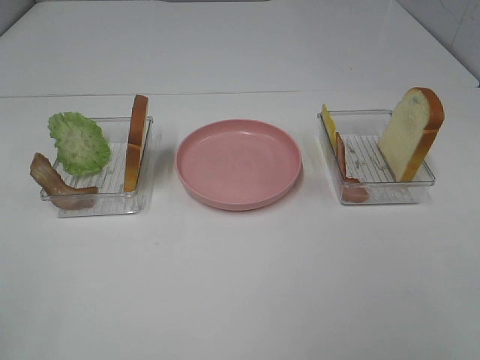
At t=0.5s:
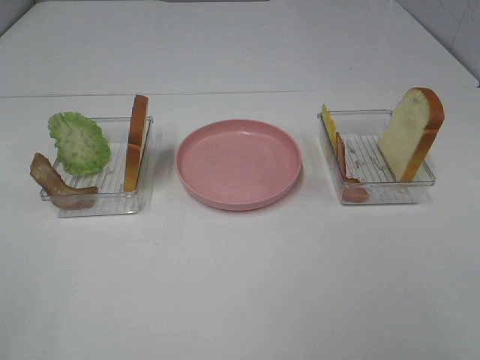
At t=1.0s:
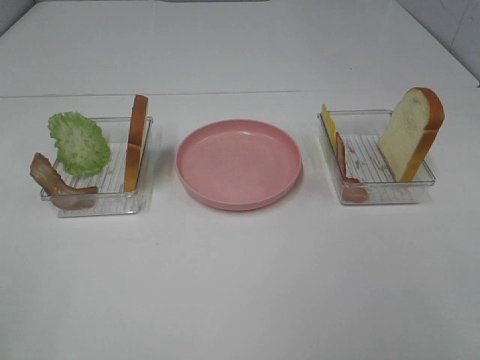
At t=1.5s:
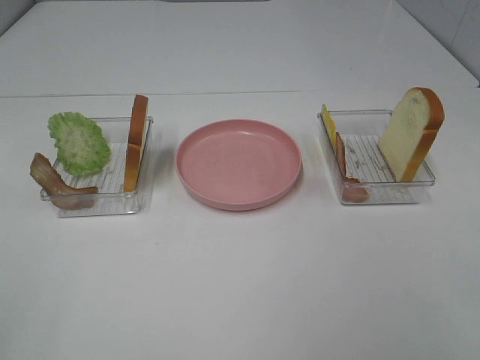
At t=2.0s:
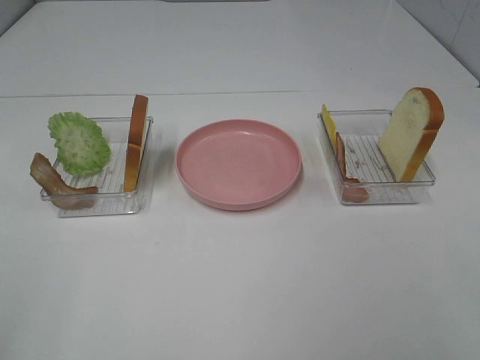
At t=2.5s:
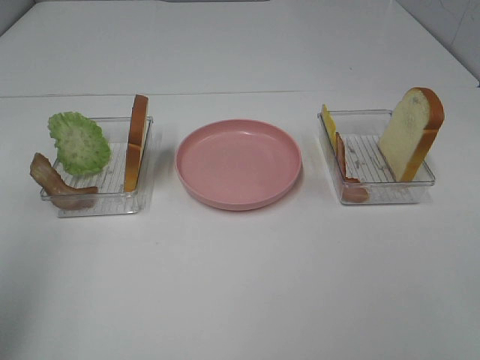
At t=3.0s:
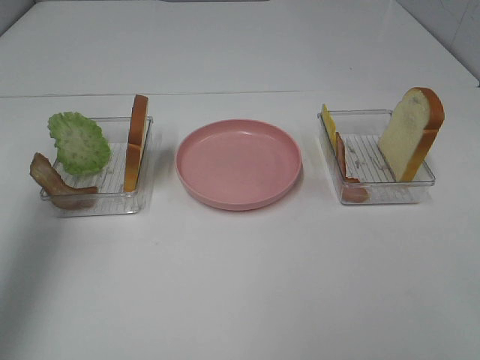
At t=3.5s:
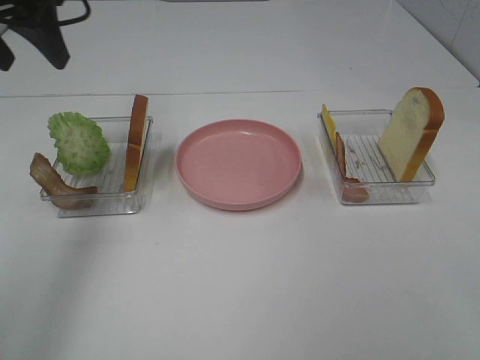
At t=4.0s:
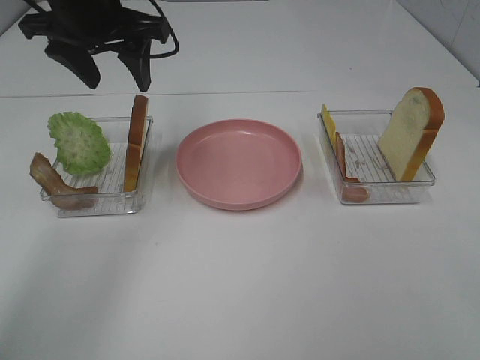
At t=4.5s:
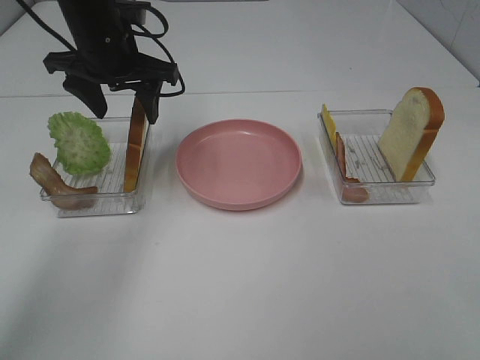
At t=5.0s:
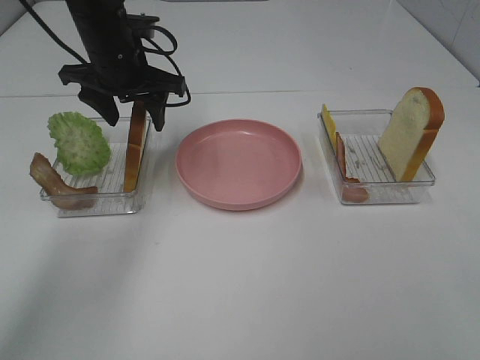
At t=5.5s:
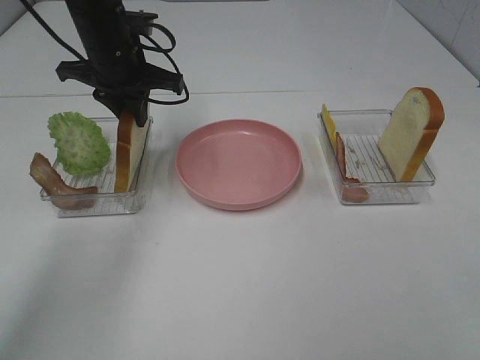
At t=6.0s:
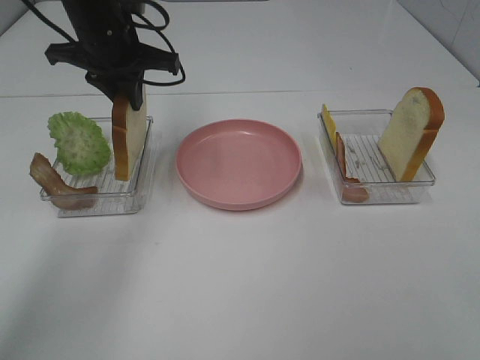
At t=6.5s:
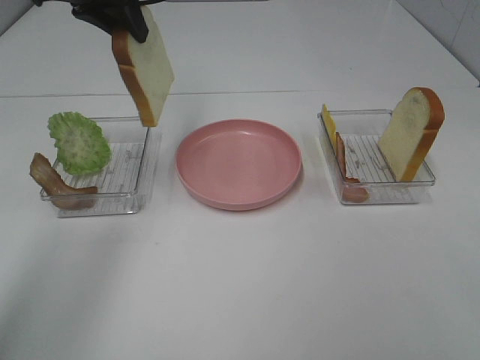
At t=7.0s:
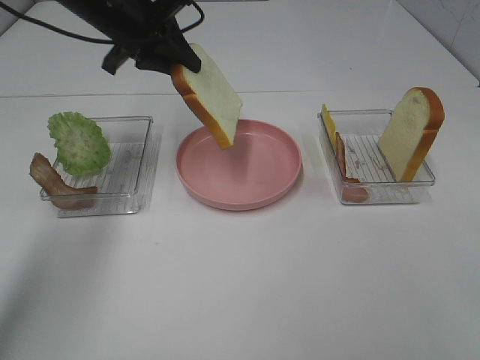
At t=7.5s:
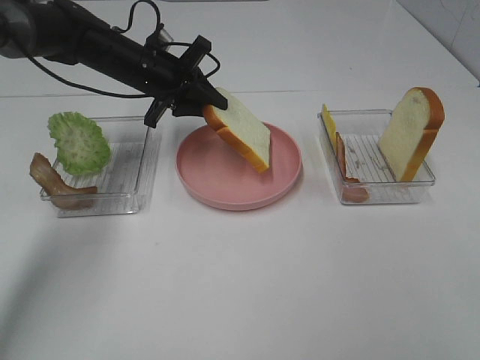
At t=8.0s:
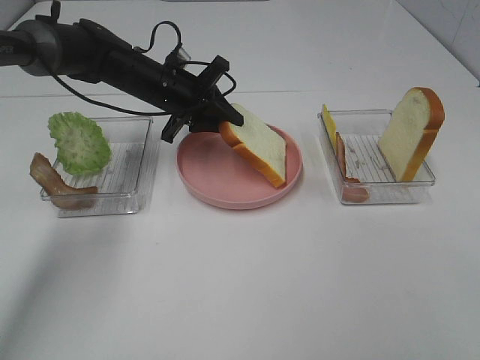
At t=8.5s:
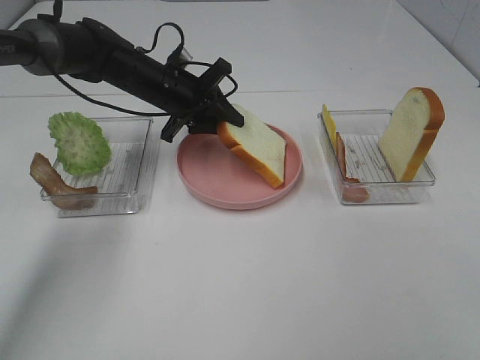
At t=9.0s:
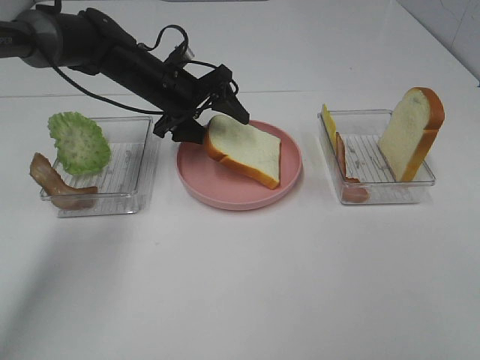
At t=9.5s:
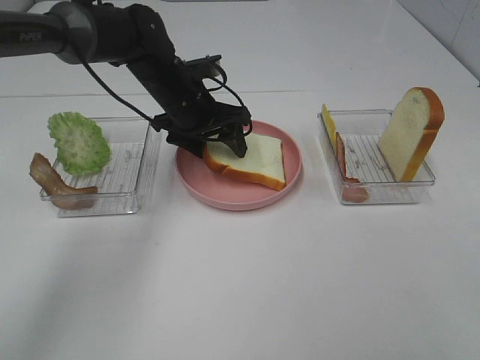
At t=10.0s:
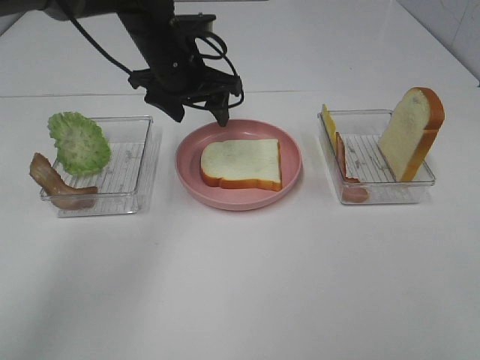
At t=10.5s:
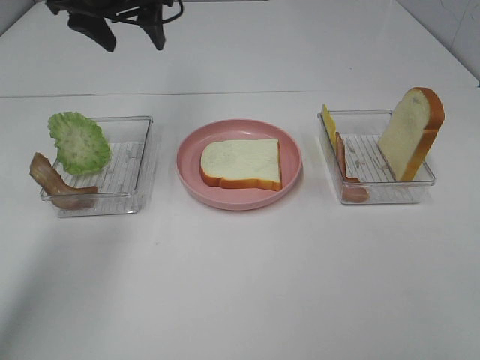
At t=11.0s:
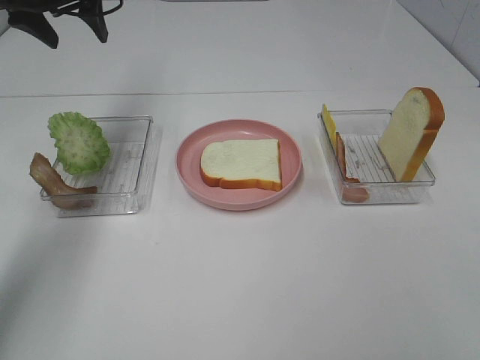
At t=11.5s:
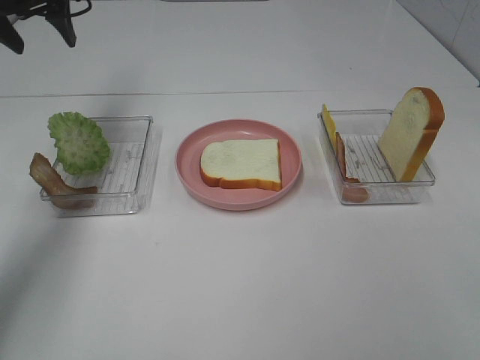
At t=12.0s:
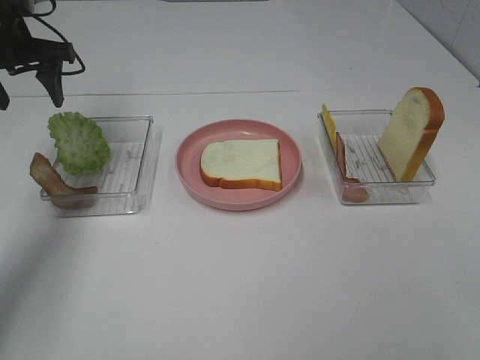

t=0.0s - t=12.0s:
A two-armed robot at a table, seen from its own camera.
Task of the whole recording: Make sandwiches.
Step, t=0.0s - t=5.5s: Left hand:grab the bread slice.
Step, t=6.0s - t=10.0s: Left hand:place the bread slice on the plate.
t=2.0s - t=4.0s: The left gripper moves forward and to the right, some 40 cm.
t=4.0s - t=6.0s: The left gripper closes up.
t=6.0s - t=8.0s: The left gripper shifts approximately 10 cm downward.
t=8.0s - t=10.0s: The left gripper heads upward, covering some 10 cm, and opens up.
t=10.0s - t=12.0s: The left gripper travels to the left by about 20 cm.

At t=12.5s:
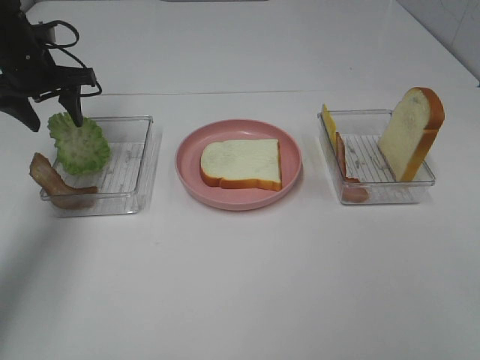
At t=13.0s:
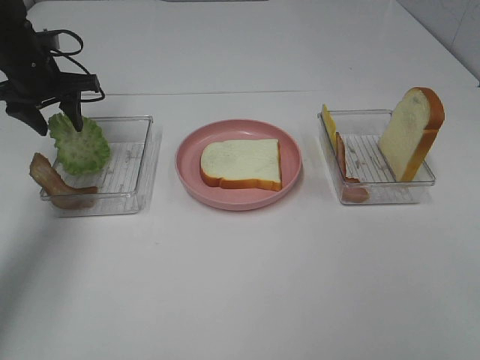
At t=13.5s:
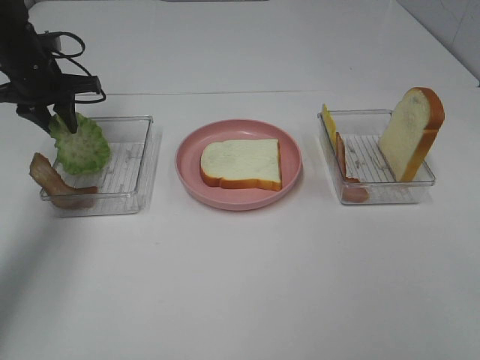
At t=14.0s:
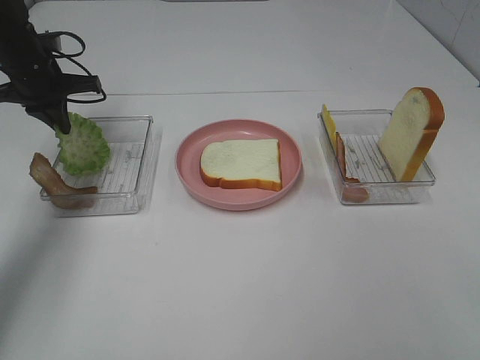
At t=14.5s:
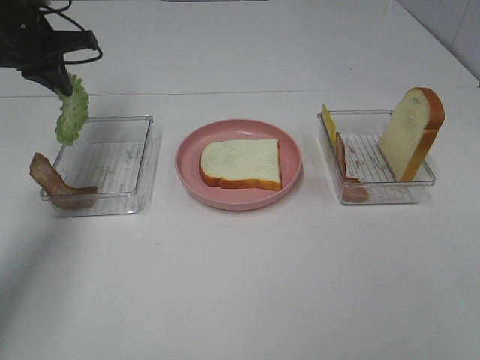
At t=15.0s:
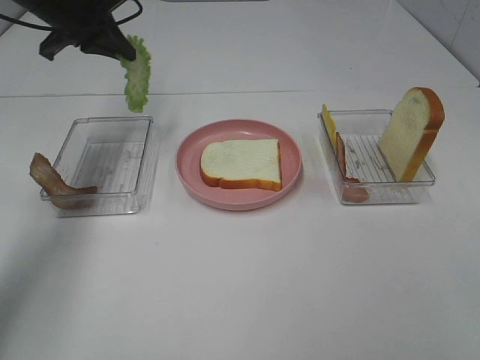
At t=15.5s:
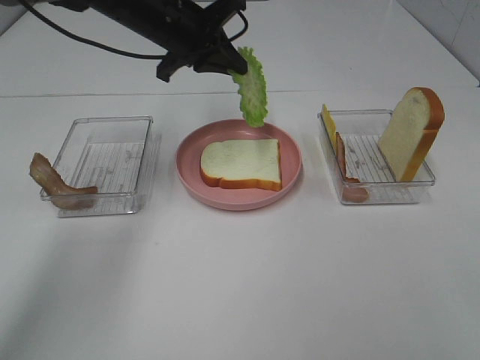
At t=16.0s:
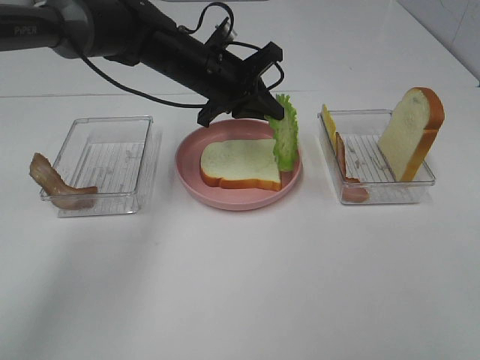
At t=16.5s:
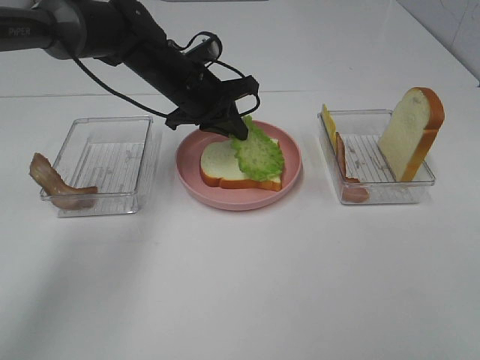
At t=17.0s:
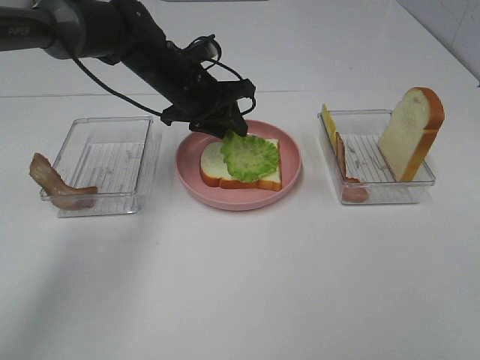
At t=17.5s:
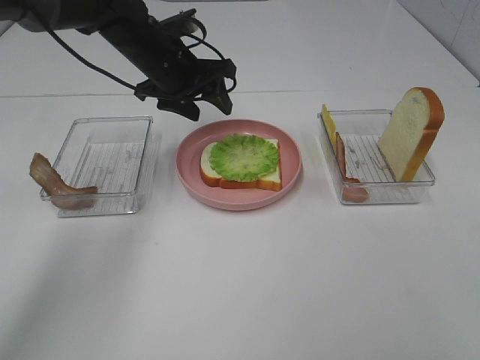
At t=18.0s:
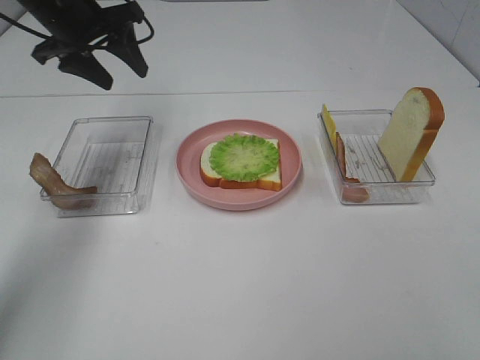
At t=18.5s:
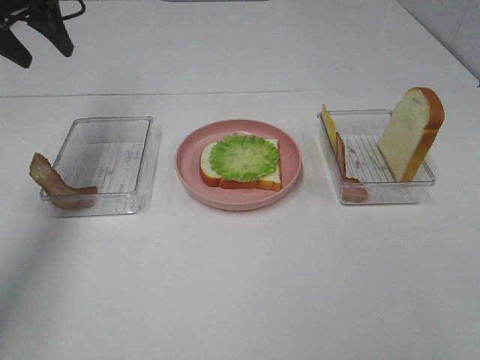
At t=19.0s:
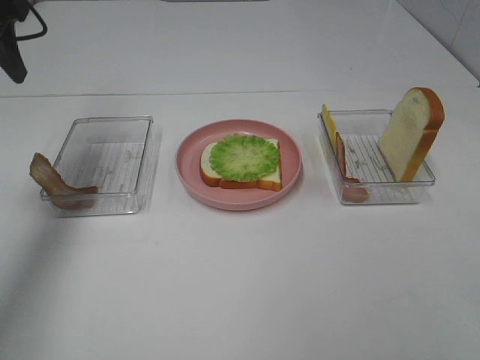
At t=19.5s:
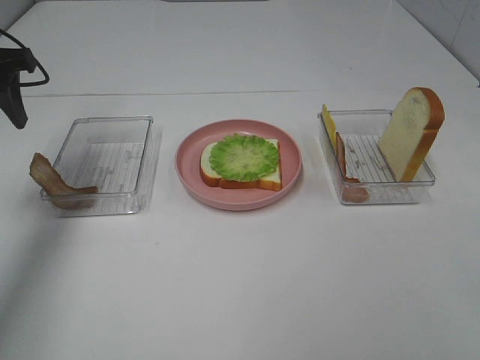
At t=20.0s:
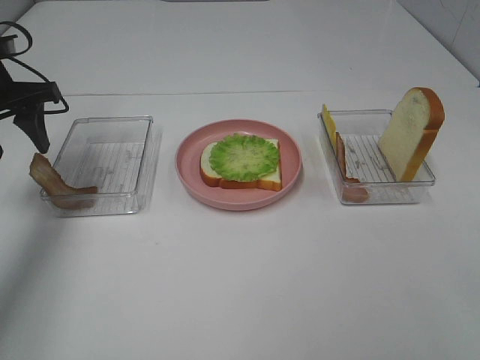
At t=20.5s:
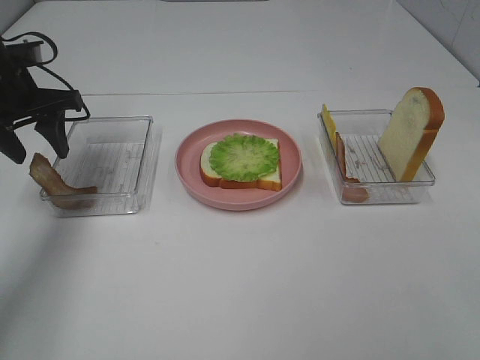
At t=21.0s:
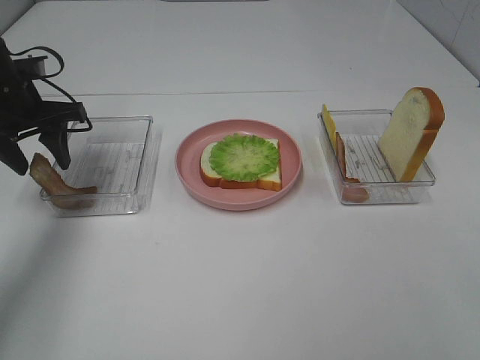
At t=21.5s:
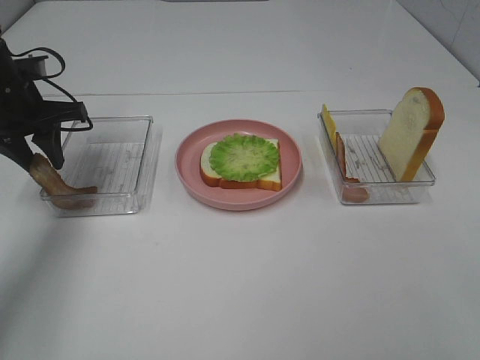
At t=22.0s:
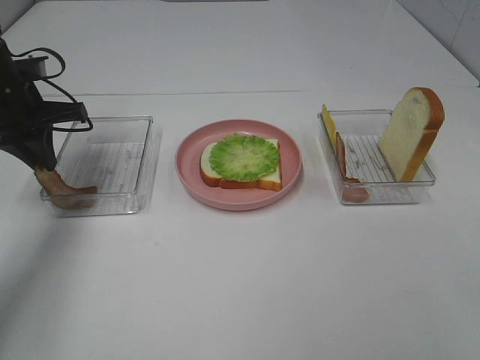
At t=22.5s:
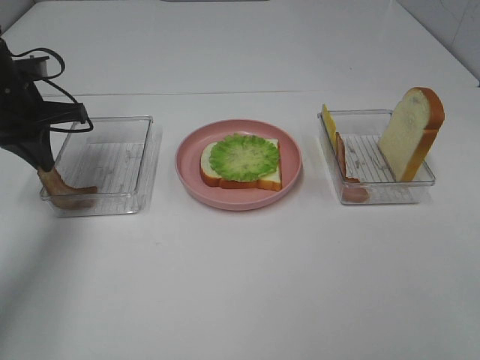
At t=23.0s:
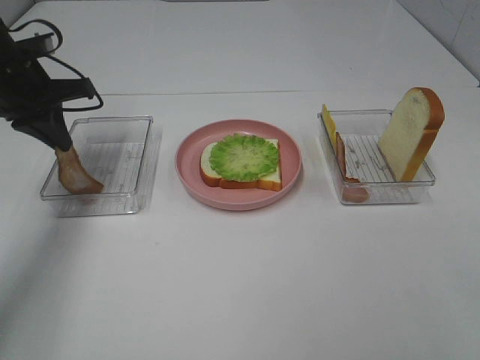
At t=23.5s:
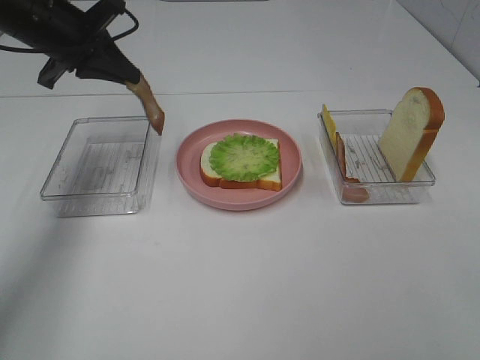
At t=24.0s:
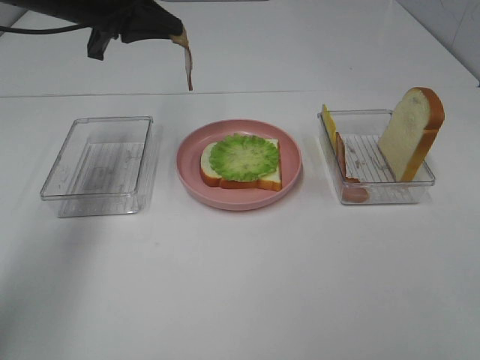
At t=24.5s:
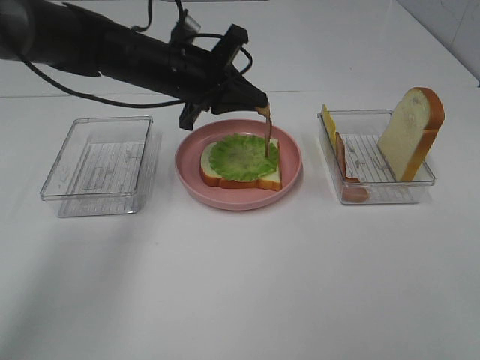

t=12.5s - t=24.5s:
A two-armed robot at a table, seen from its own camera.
Task of the whole recording: Make sandwiches.
Step, t=14.5s - t=17.5s: Left hand:place the lettuce slice on the bread slice.
Step, t=18.0s - t=22.5s: Left hand:grab the bacon.
t=12.5s - t=14.5s: The left gripper moves about 5 cm, and closes its fingers.
t=14.5s - t=16.5s: The left gripper heads to the right and downward, covering roughly 20 cm.
t=16.5s - t=18.5s: The left gripper travels to the left and upward by approximately 25 cm, and opens.
t=18.5s - t=20.5s: The left gripper heads downward, covering approximately 10 cm.
t=20.5s - t=22.5s: The left gripper closes its fingers.
t=22.5s - t=24.5s: The left gripper travels to the right by about 20 cm.

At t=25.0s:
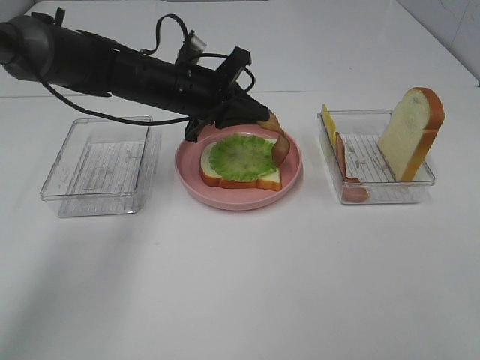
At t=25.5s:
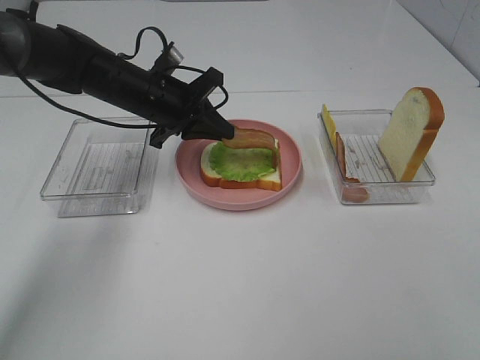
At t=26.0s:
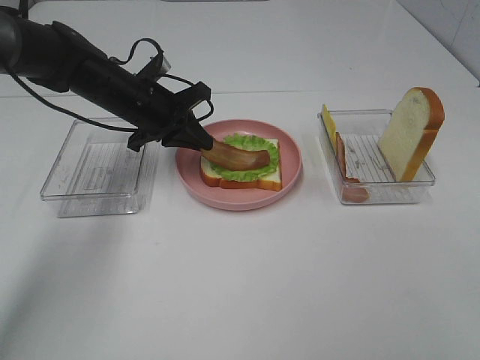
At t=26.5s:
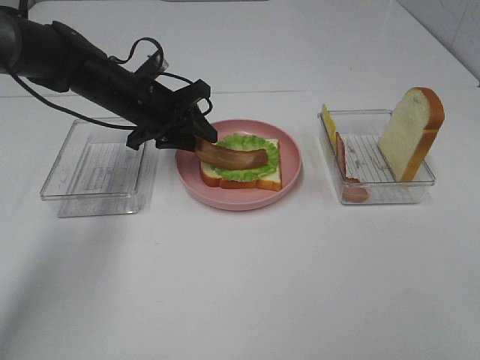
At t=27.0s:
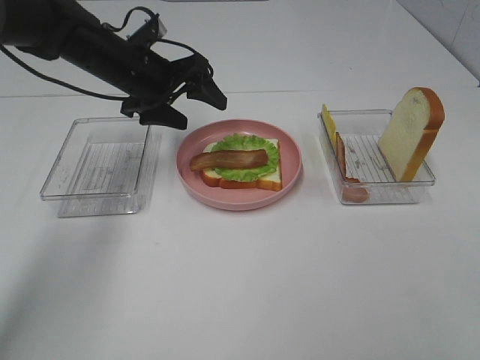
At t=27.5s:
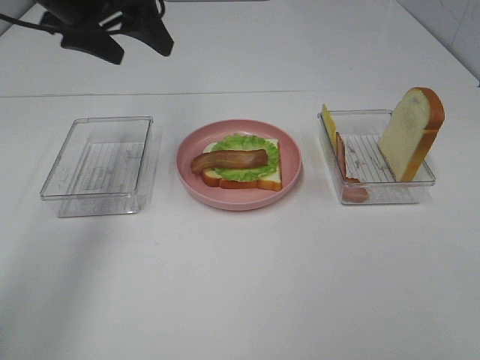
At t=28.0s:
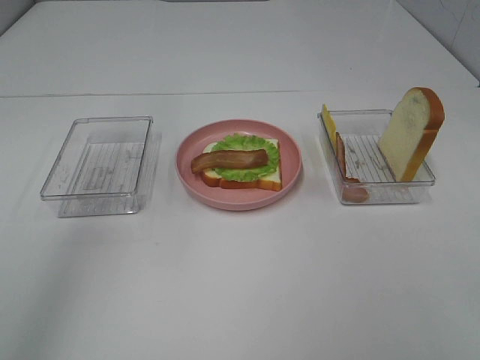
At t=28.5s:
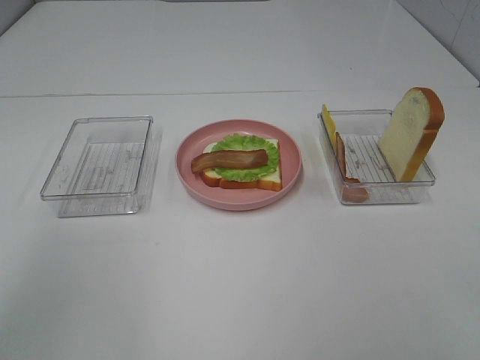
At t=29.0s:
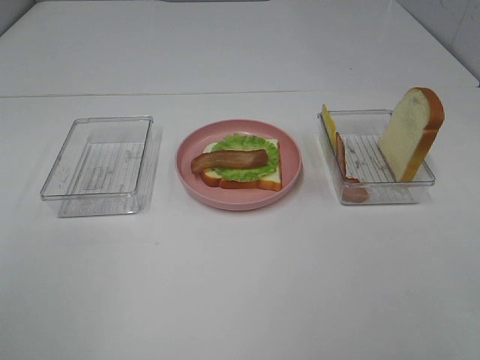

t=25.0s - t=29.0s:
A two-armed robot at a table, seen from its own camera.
Task of the whole recording: Make sandwiches.
t=25.0s - t=27.0s: The left gripper moves to the left, some 5 cm, and opens up.
t=27.0s - t=29.0s: The left gripper is displaced backward and upward by roughly 40 cm.
